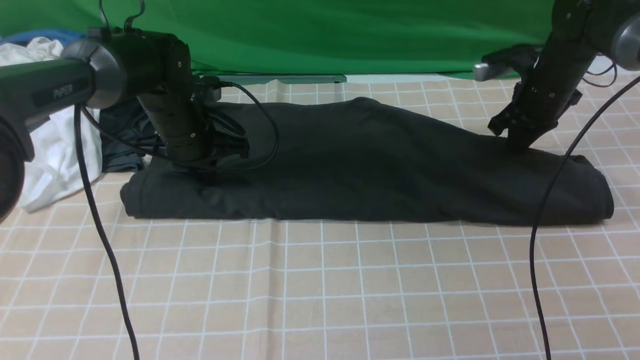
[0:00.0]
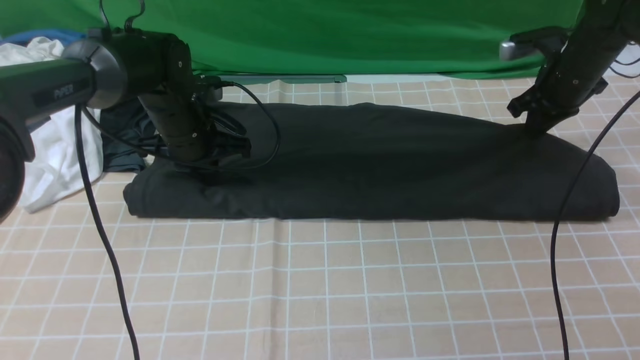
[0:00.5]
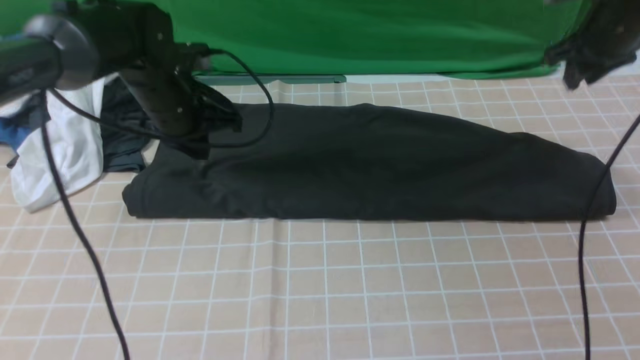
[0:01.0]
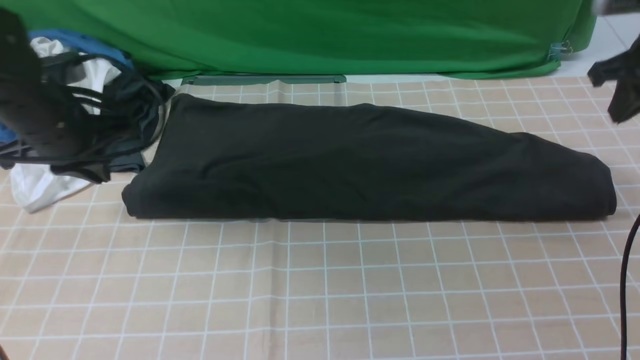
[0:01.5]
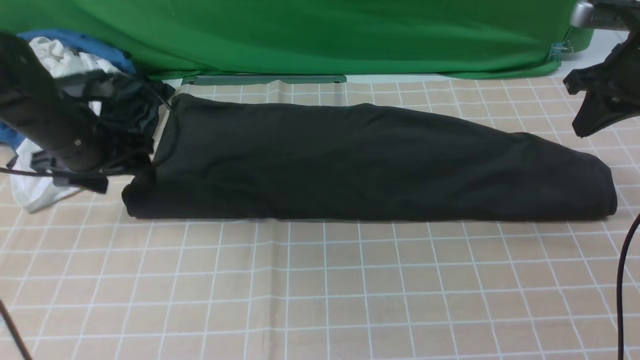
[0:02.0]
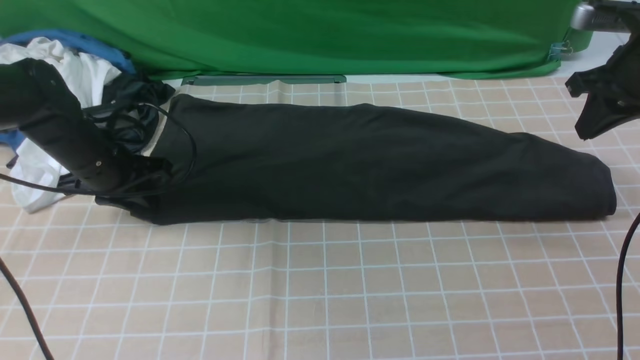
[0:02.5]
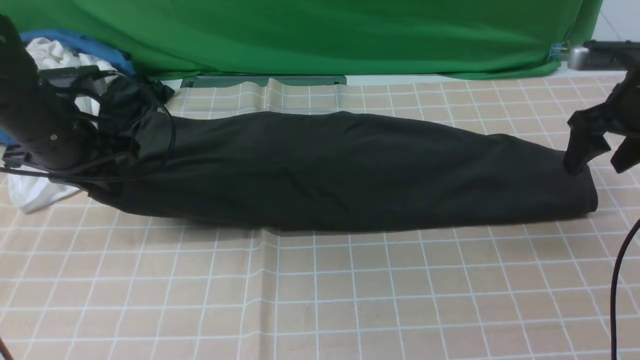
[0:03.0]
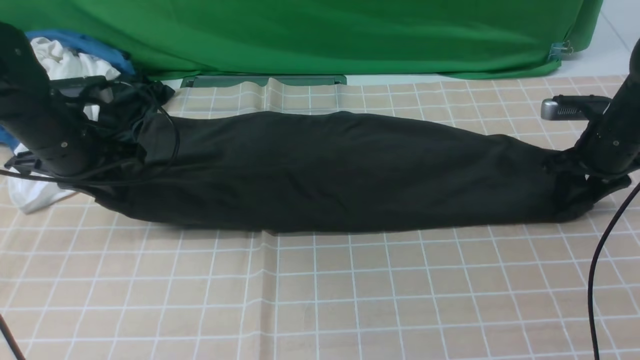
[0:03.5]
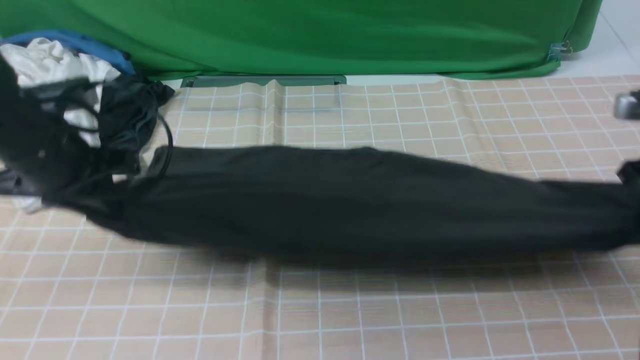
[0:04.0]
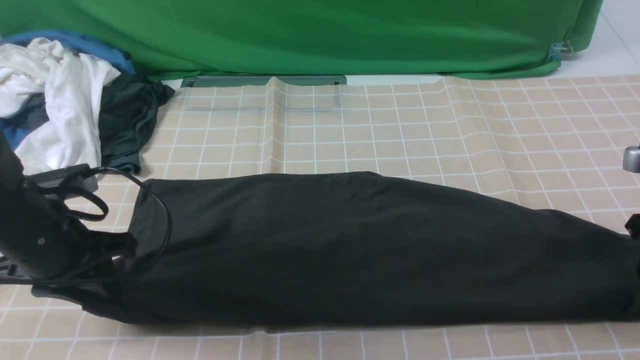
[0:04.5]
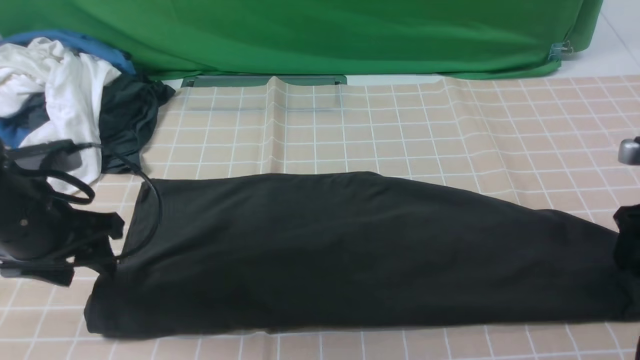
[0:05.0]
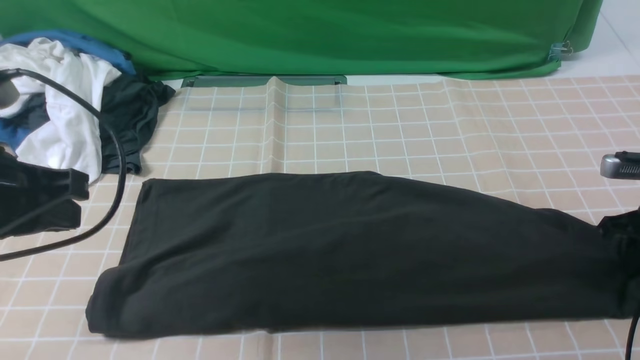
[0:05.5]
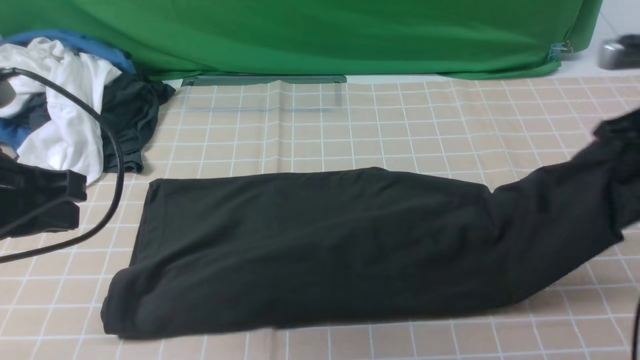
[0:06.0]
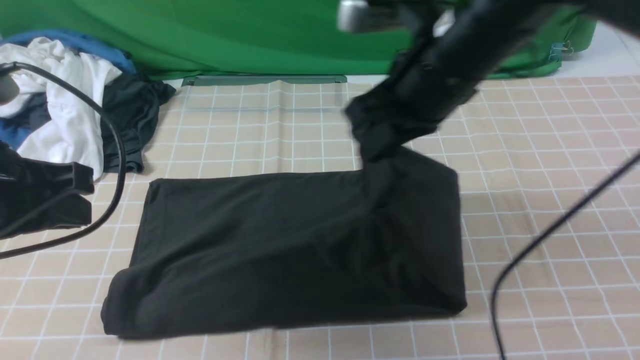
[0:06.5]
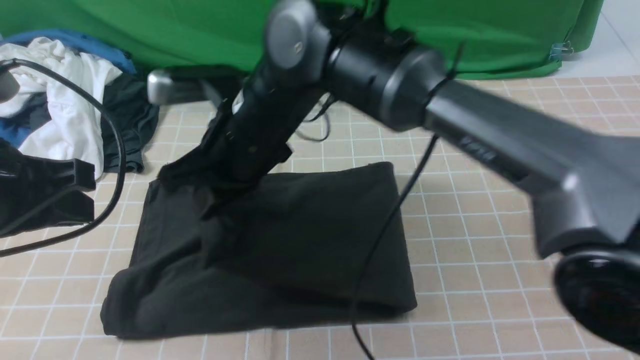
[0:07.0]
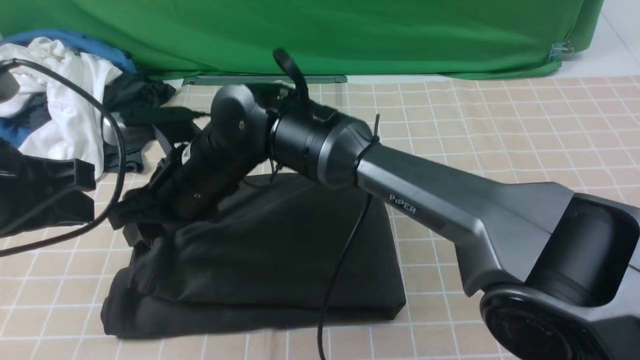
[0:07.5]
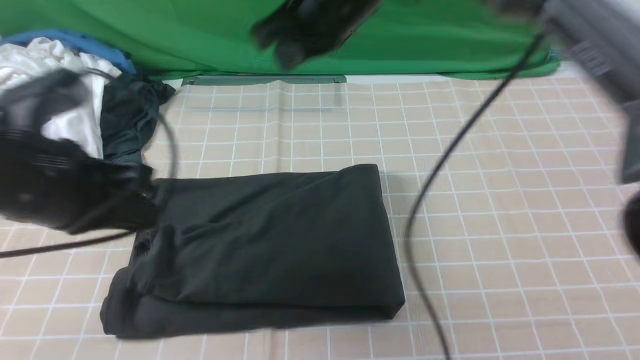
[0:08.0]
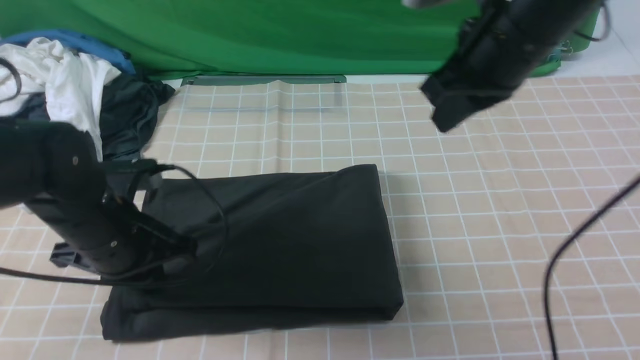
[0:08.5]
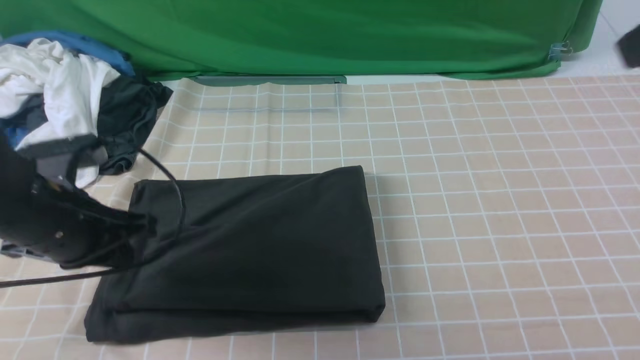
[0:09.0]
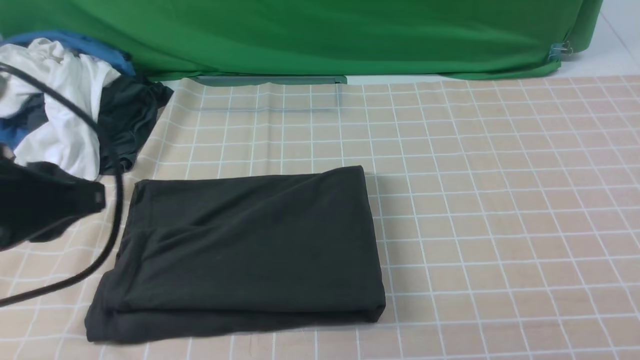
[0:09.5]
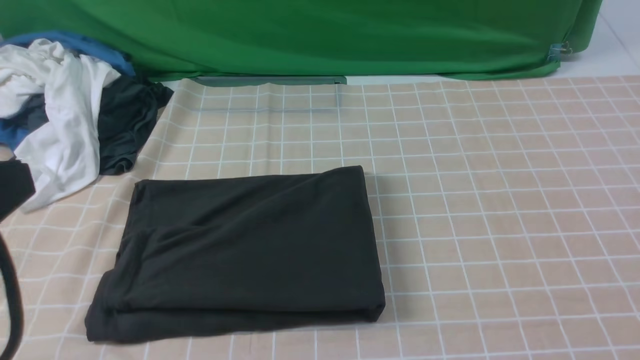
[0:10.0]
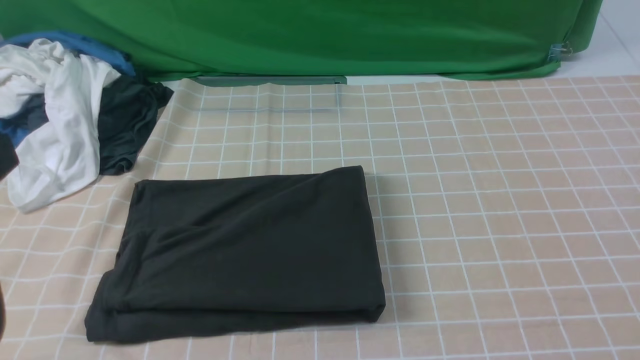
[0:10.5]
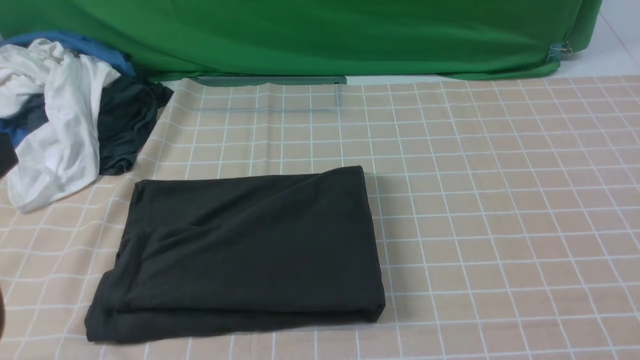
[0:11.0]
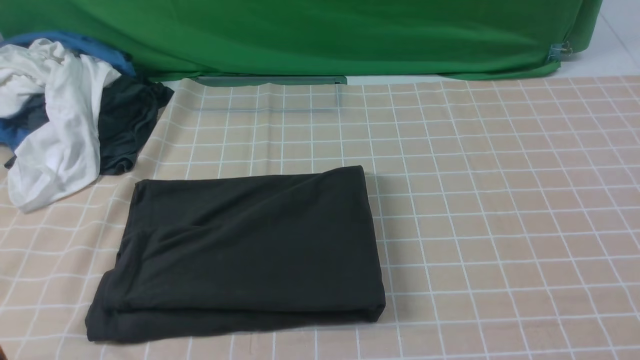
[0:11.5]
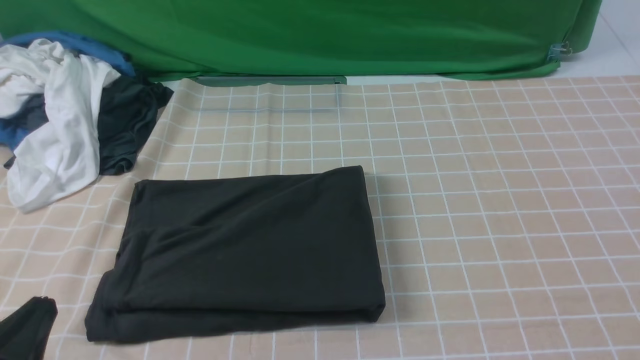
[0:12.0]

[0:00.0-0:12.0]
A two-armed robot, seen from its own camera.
Step, 0:00.0 to 0:05.0: use the right arm to clamp the right edge of the fabric.
Step, 0:06.0 to 0:07.0: use the right arm to drag the right edge of the fabric to the left and folds it over the left edge.
0:00.0 to 0:02.0: The left gripper travels to the left by some 10 cm, and opens. Meanwhile the right gripper travels upward and backward by roughly 15 cm.
0:02.0 to 0:04.0: The right gripper is displaced backward and downward by about 10 cm, and opens, then closes again, while the left gripper heads backward, covering about 5 cm, and closes its fingers.
0:04.0 to 0:06.0: The right gripper is displaced to the left and upward by approximately 10 cm, and opens, then closes again; the left gripper heads backward and upward, covering some 15 cm, and opens and closes again.
0:06.0 to 0:08.0: The left gripper ends up about 5 cm from where it was. The right gripper is displaced to the left by approximately 25 cm, and opens, then closes once more.
0:08.0 to 0:10.0: The right gripper moves backward and to the right, approximately 50 cm. The left gripper is displaced backward and upward by about 15 cm.
0:10.0 to 0:12.0: The left gripper heads downward, covering roughly 15 cm.

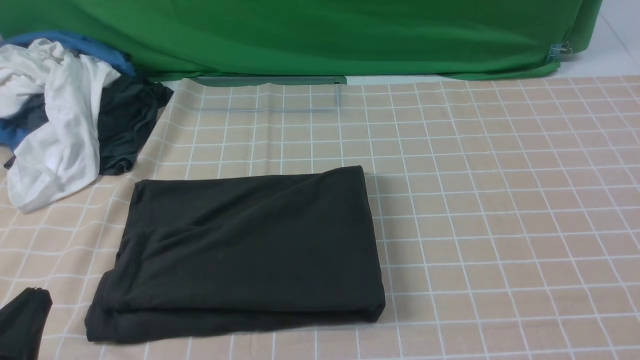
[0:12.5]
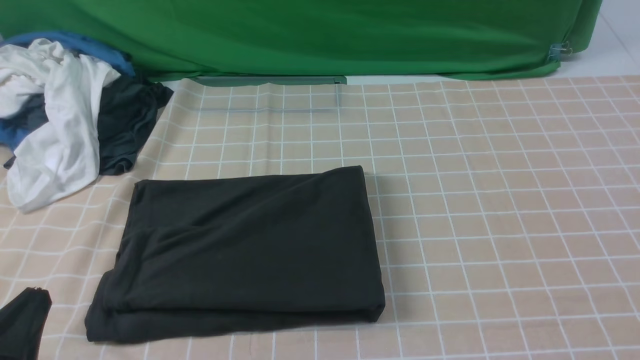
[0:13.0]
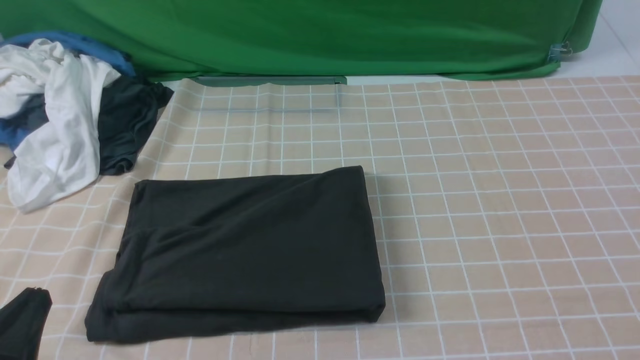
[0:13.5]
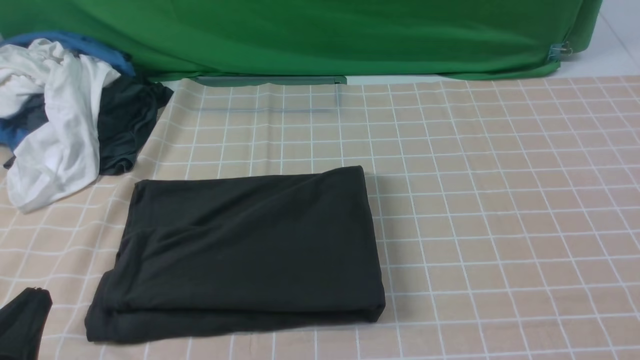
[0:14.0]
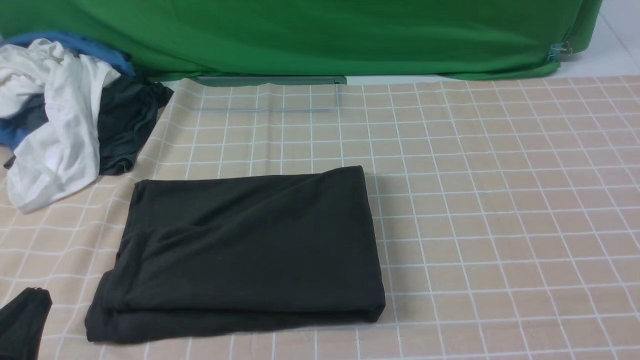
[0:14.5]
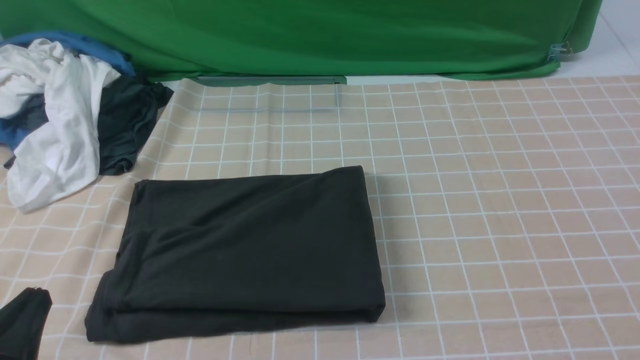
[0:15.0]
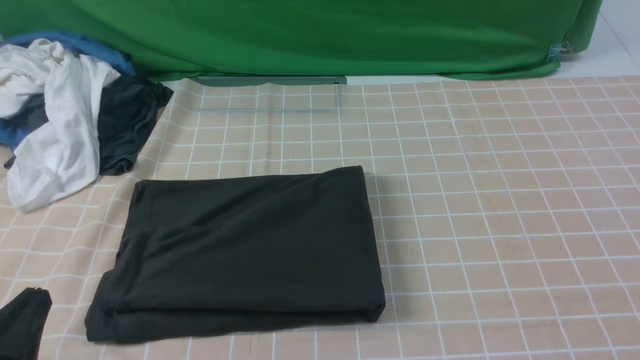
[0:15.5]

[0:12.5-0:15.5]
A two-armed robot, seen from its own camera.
0:14.0 to 0:15.5: Both grippers stay put.
